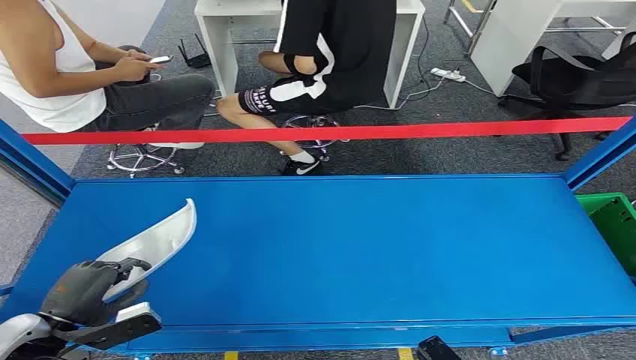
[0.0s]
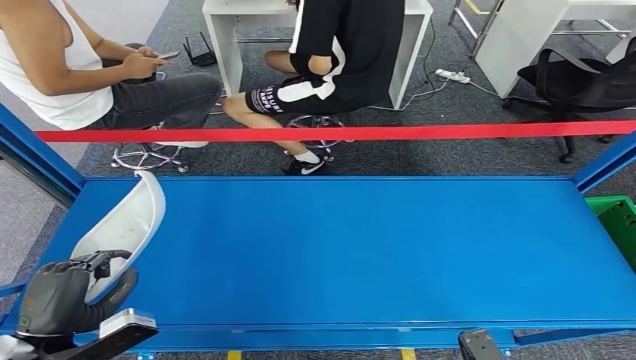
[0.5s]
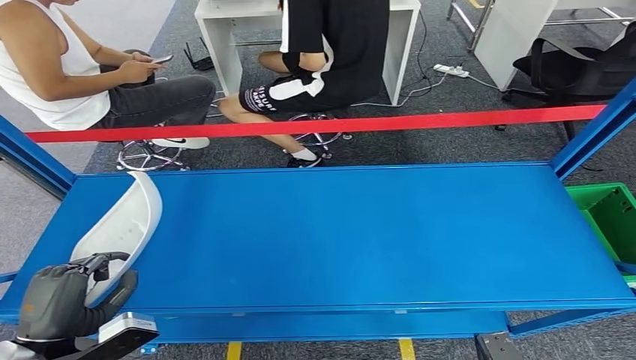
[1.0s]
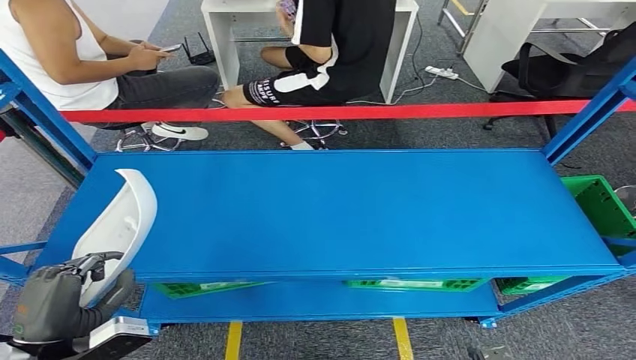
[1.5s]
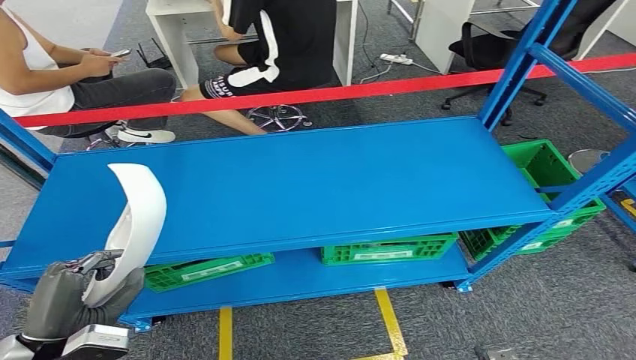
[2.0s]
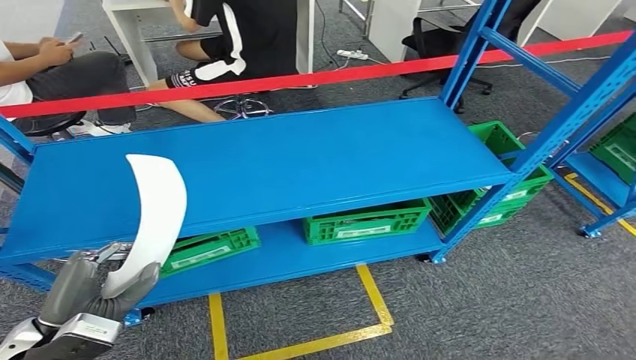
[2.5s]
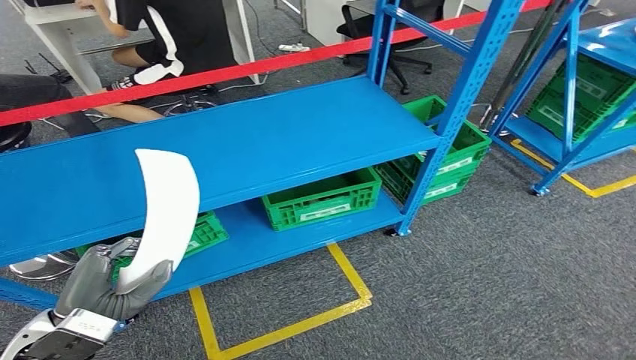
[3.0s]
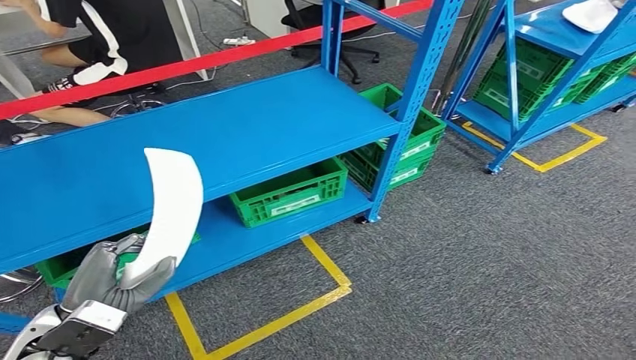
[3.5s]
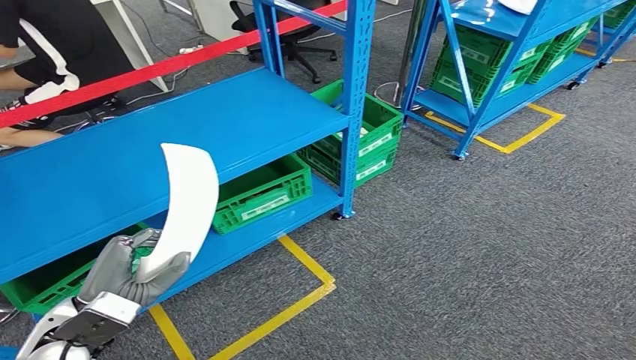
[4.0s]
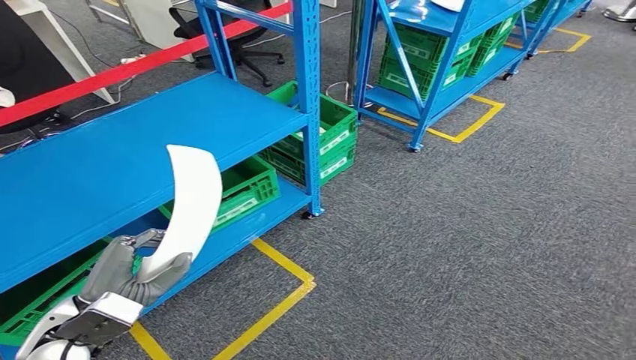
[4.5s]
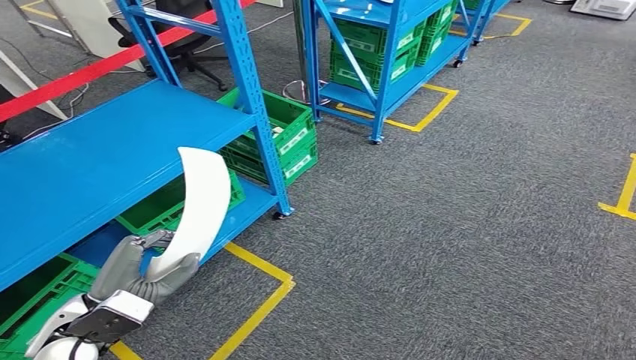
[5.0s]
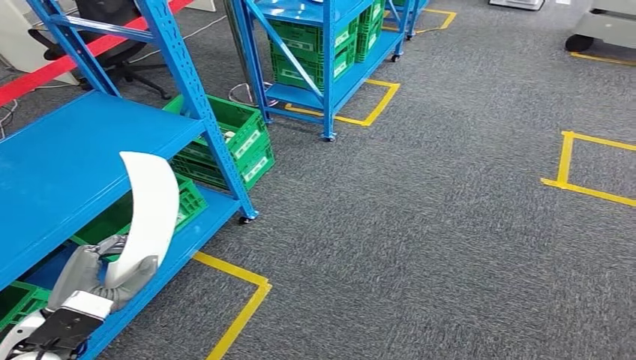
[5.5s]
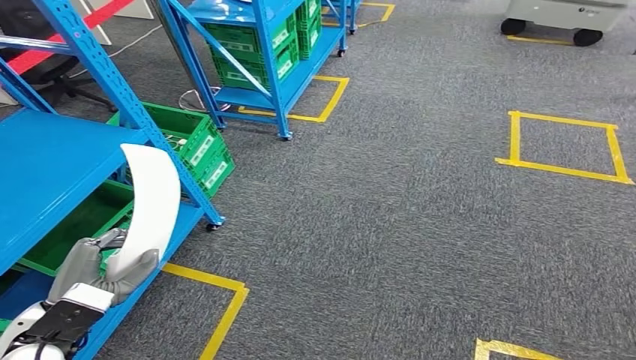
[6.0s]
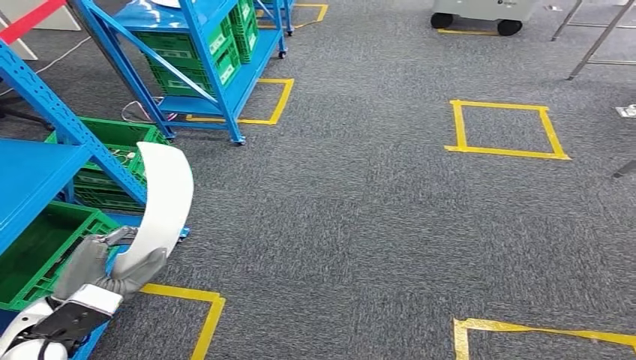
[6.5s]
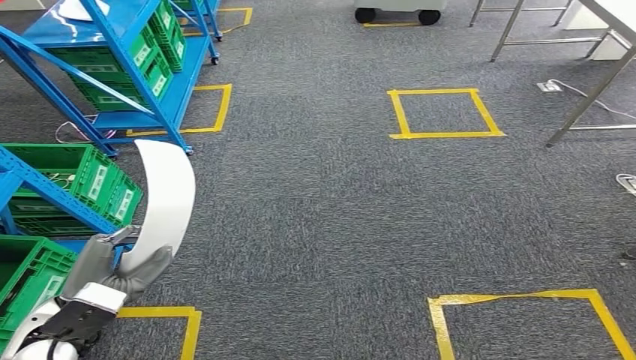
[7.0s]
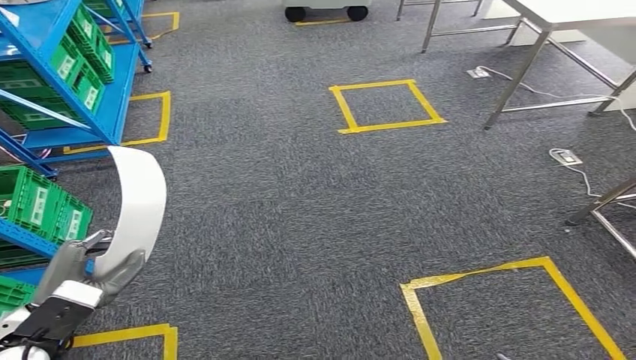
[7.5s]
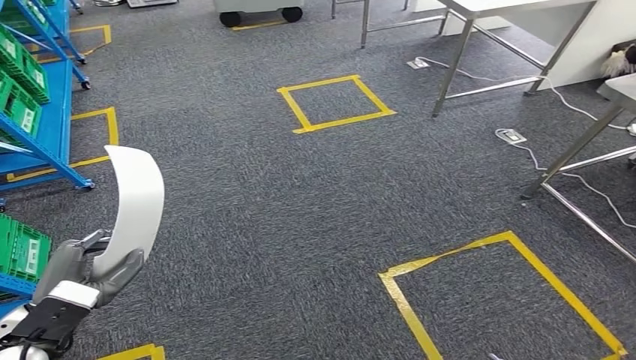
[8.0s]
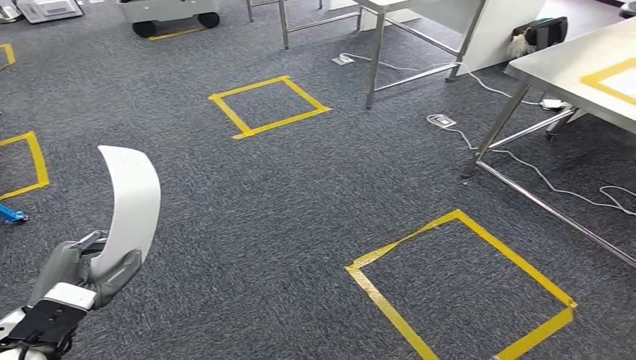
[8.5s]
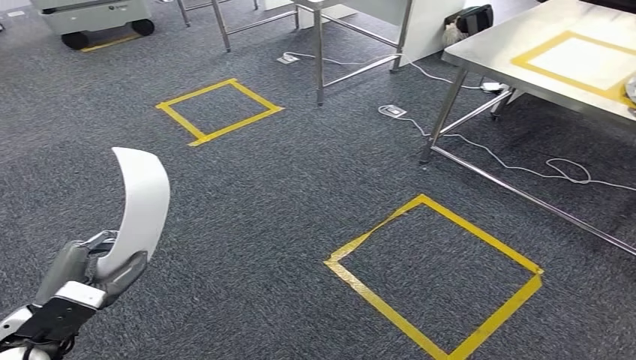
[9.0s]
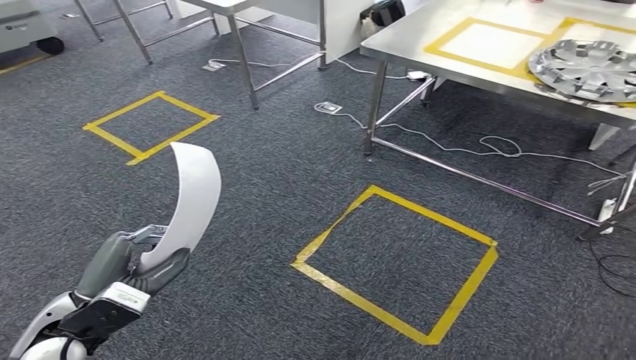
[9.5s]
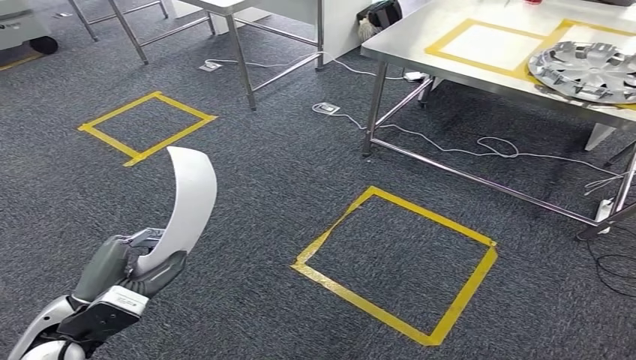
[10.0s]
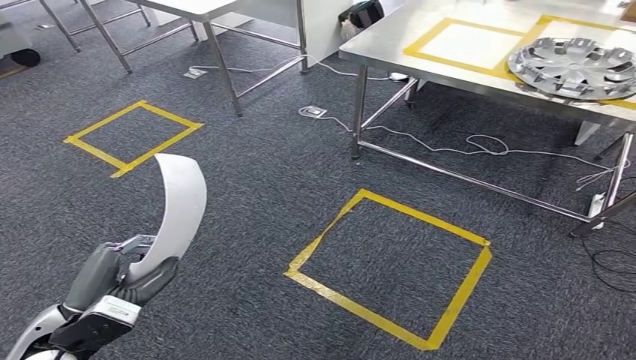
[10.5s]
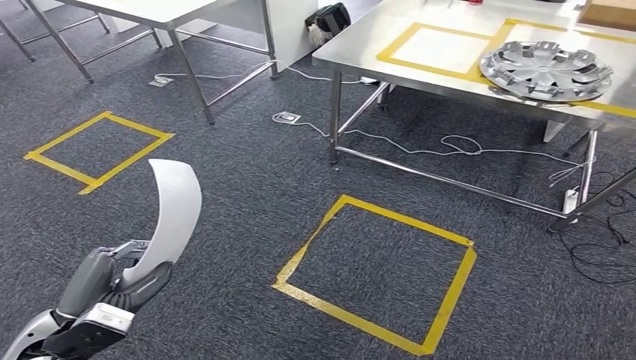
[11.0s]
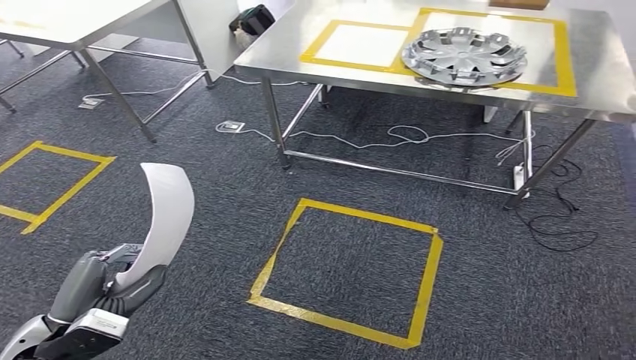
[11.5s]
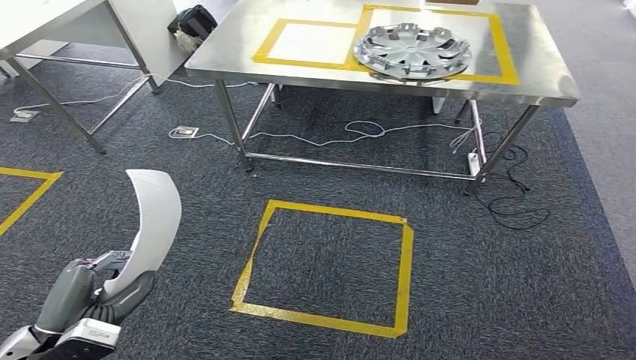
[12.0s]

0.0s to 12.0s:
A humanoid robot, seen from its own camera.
Step, 0.0s to 3.0s: Pick up the small component from the shelf.

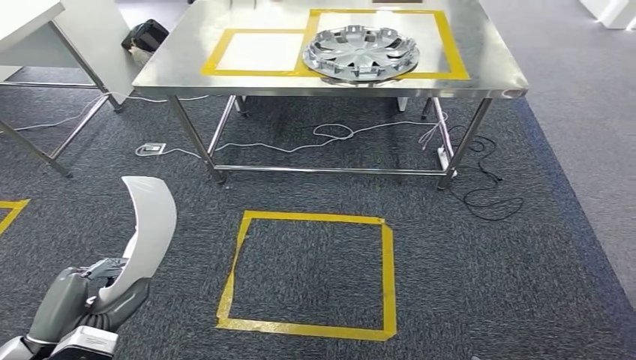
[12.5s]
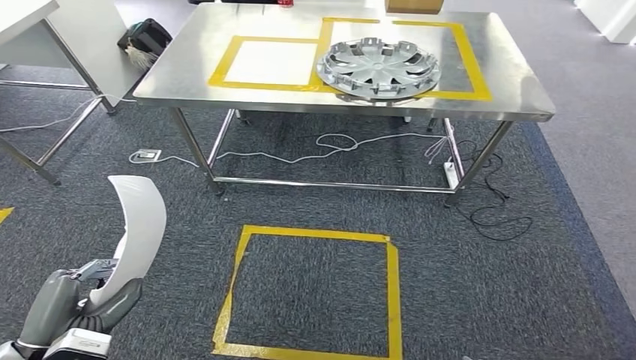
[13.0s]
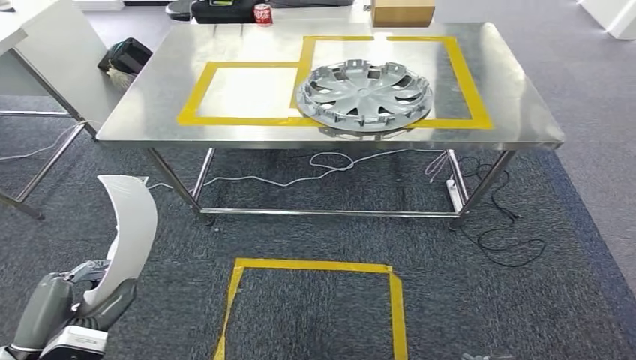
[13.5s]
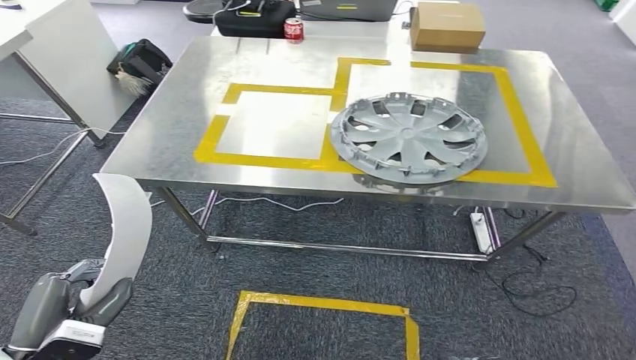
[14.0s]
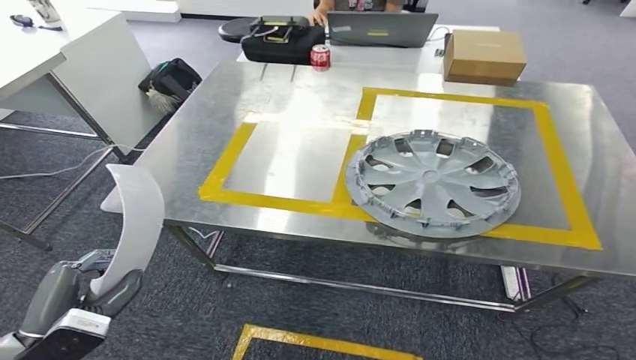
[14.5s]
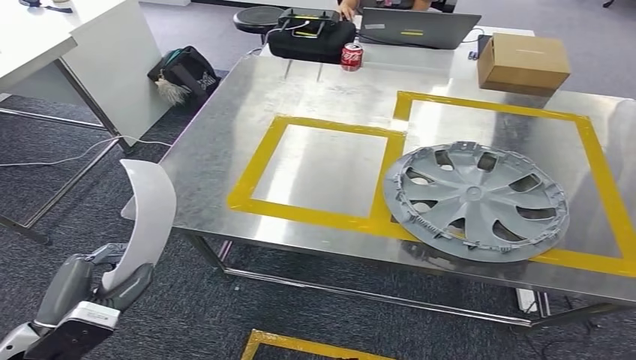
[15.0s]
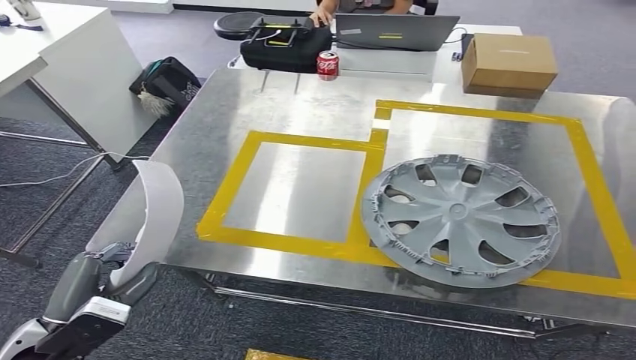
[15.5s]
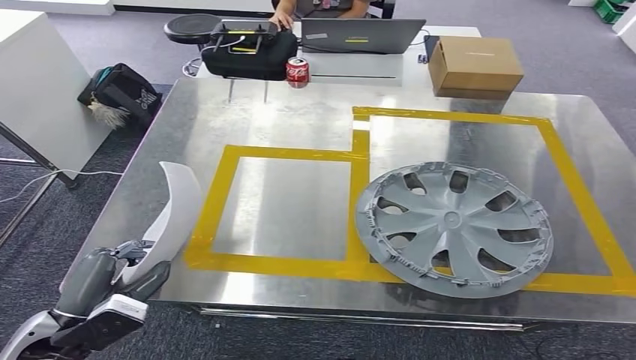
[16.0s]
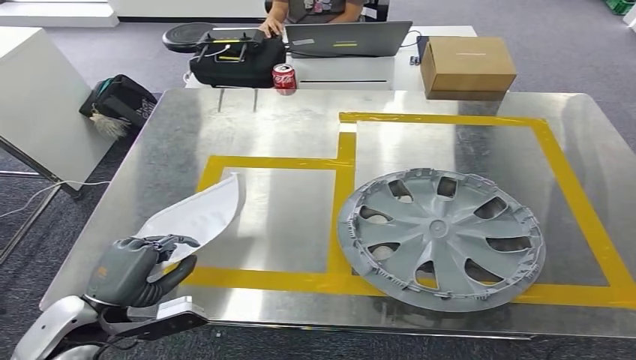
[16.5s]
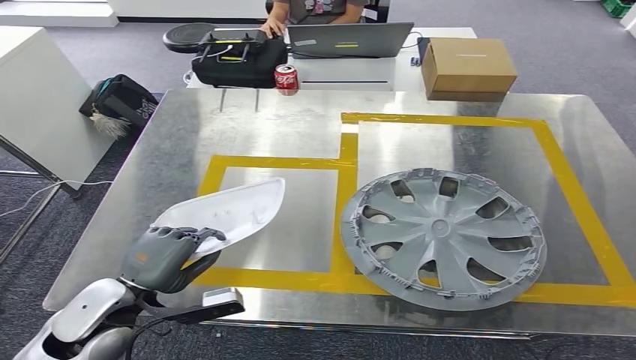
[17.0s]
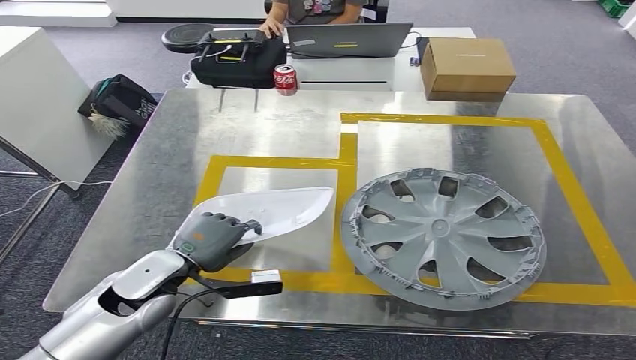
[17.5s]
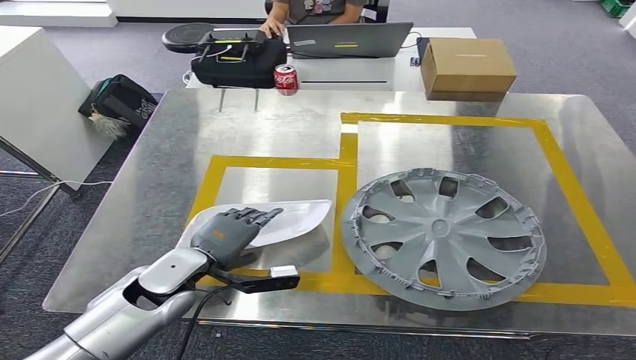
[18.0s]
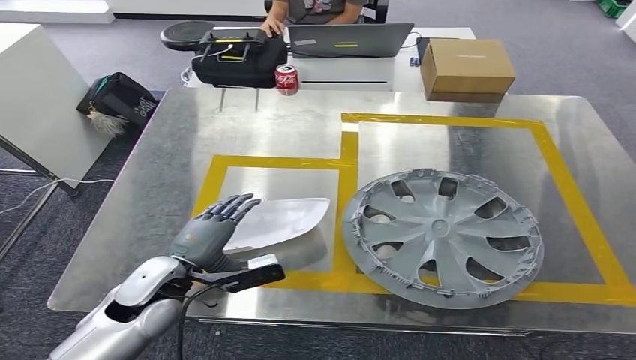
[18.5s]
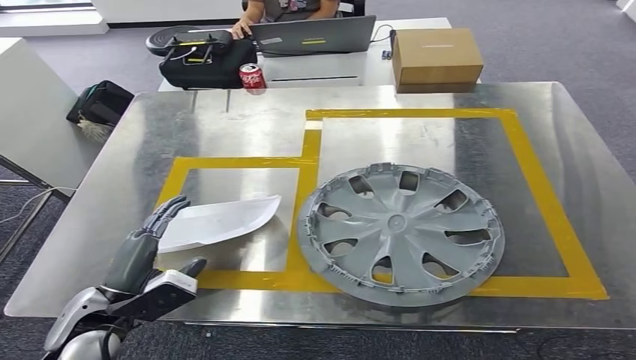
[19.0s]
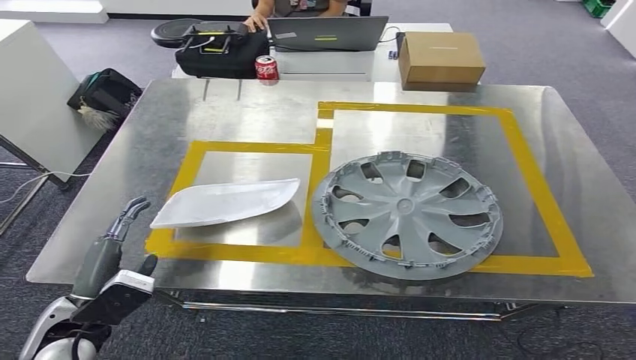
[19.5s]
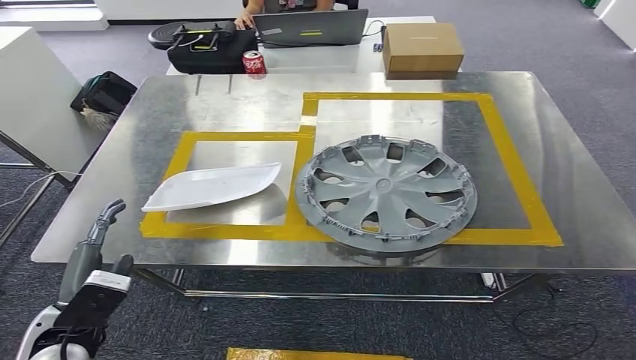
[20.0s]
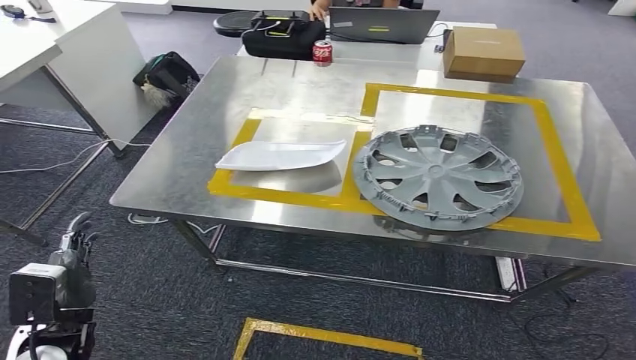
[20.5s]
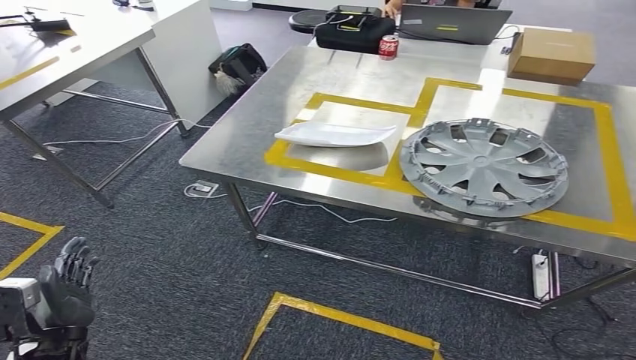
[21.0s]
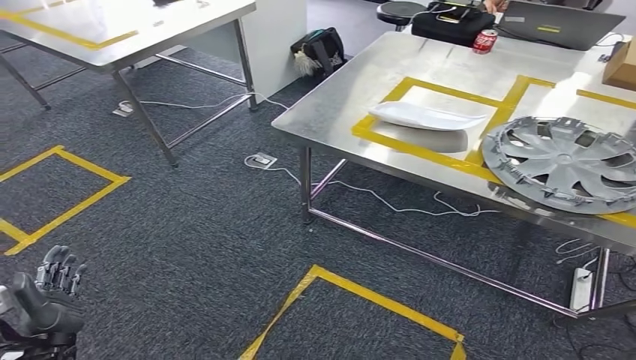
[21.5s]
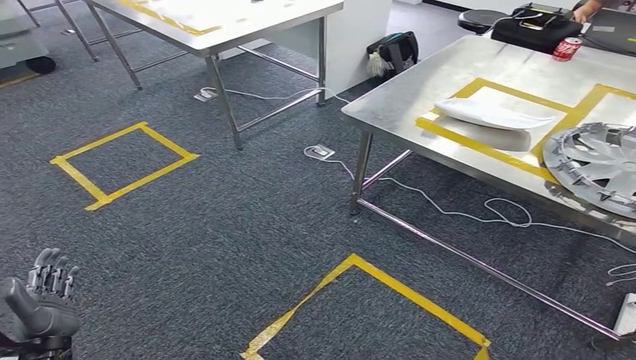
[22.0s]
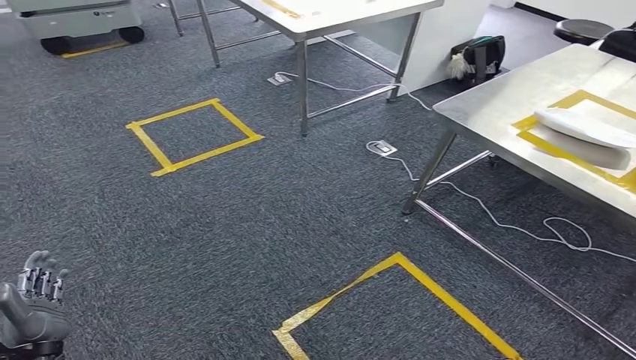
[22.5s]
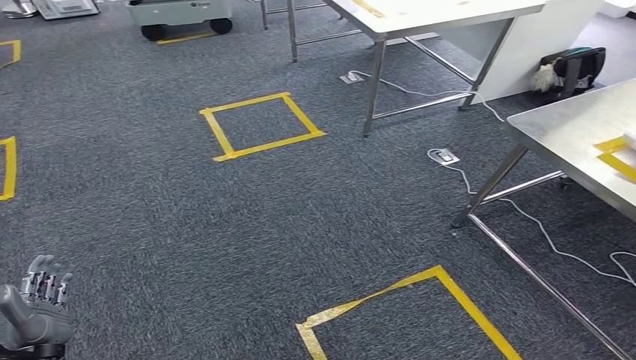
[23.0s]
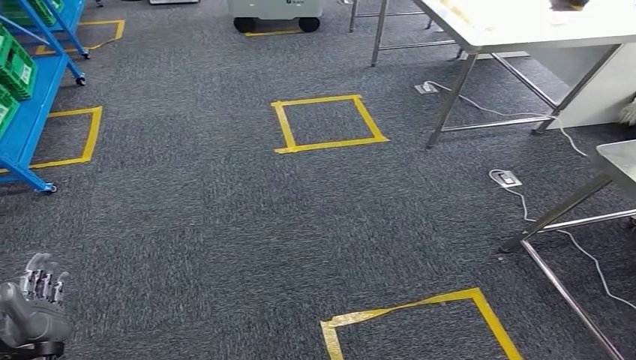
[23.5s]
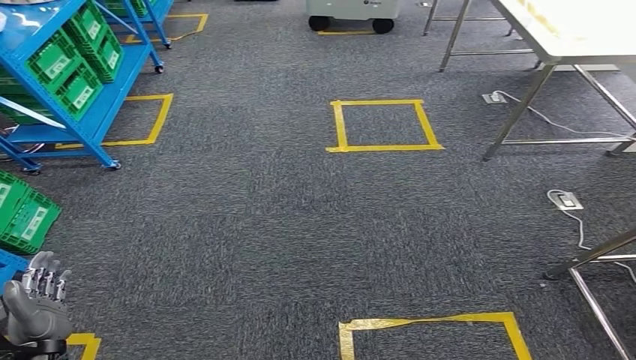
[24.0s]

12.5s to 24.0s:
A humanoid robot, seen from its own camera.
Step, 12.5s to 15.5s: Move the small component to the workbench.
Step, 16.0s to 20.0s: Insert the small component into the corresponding slot on the workbench.
